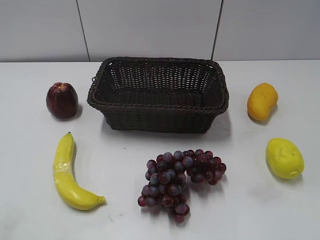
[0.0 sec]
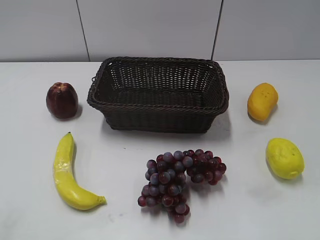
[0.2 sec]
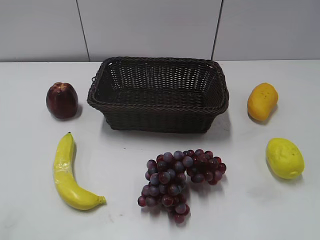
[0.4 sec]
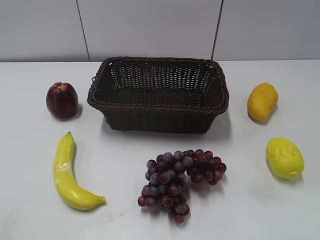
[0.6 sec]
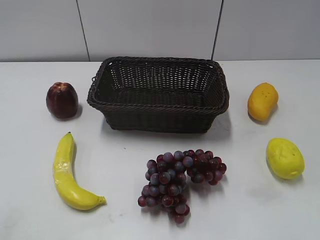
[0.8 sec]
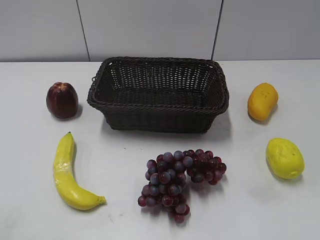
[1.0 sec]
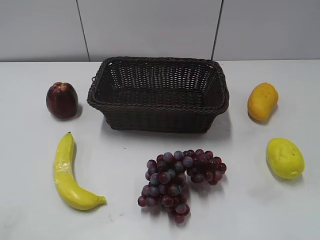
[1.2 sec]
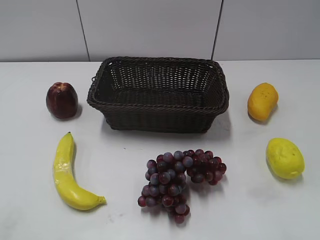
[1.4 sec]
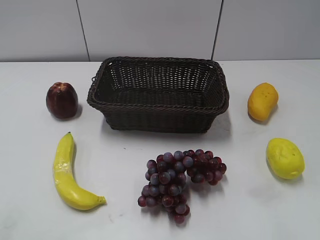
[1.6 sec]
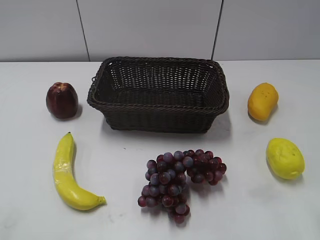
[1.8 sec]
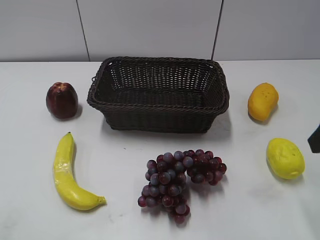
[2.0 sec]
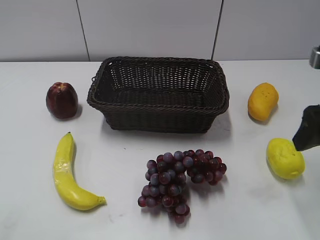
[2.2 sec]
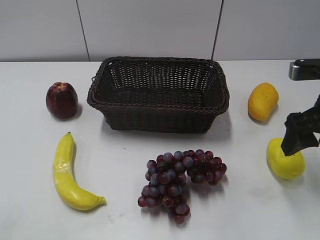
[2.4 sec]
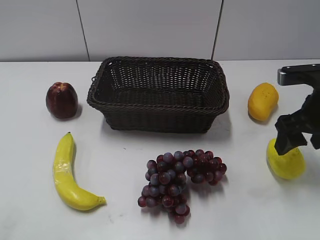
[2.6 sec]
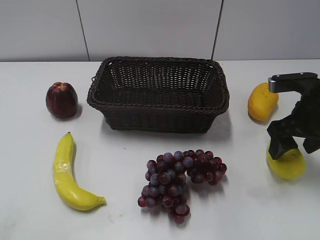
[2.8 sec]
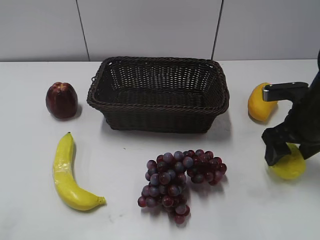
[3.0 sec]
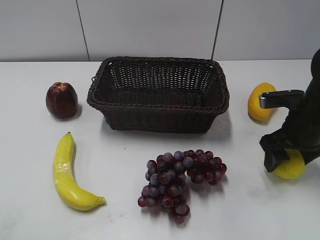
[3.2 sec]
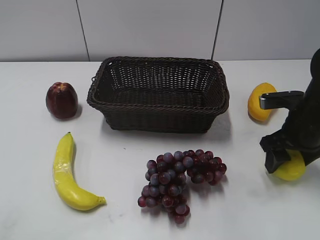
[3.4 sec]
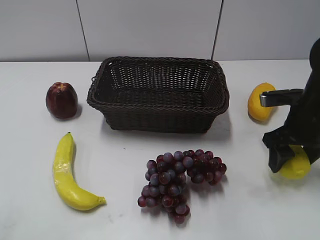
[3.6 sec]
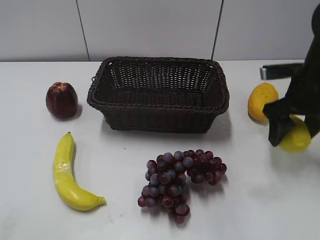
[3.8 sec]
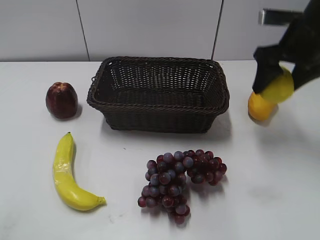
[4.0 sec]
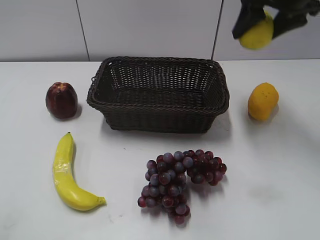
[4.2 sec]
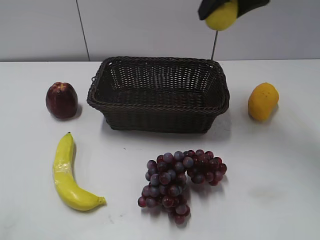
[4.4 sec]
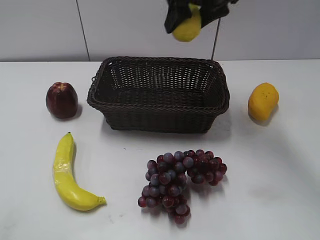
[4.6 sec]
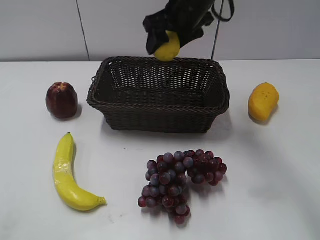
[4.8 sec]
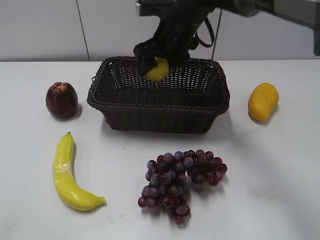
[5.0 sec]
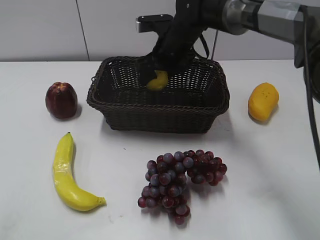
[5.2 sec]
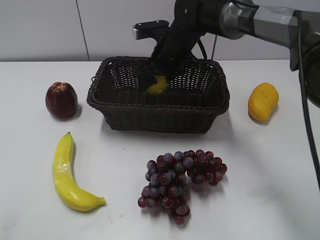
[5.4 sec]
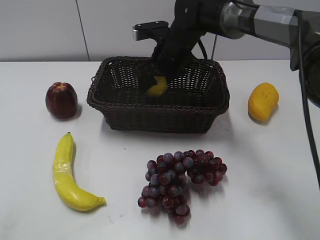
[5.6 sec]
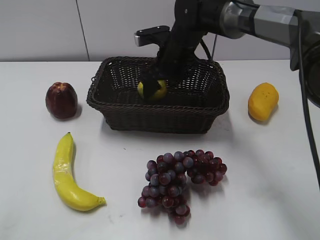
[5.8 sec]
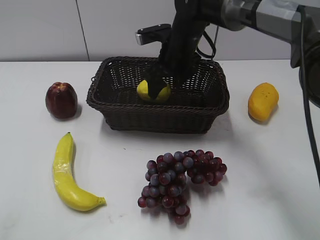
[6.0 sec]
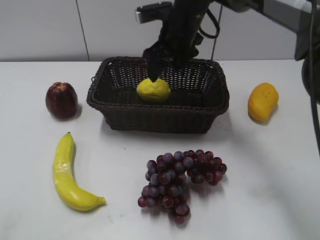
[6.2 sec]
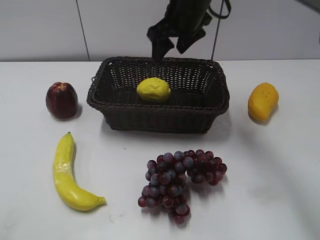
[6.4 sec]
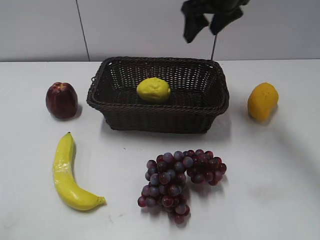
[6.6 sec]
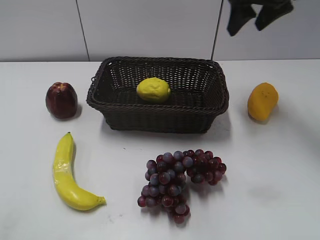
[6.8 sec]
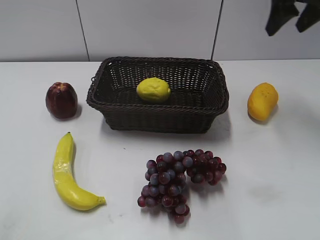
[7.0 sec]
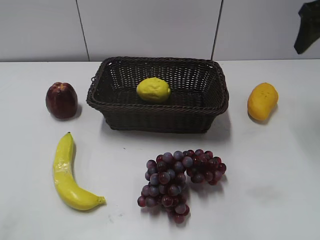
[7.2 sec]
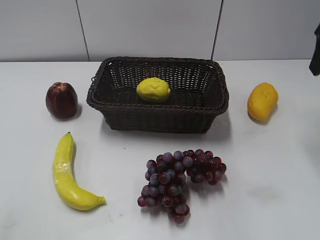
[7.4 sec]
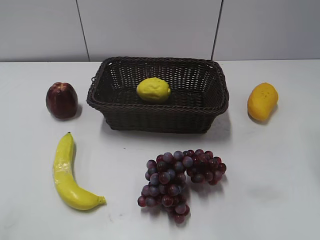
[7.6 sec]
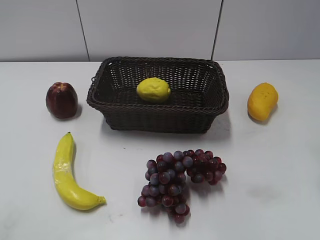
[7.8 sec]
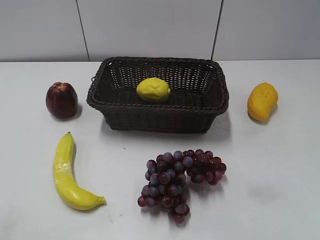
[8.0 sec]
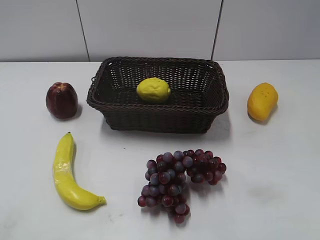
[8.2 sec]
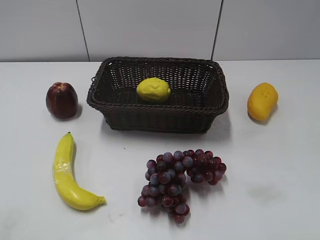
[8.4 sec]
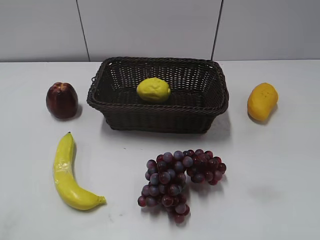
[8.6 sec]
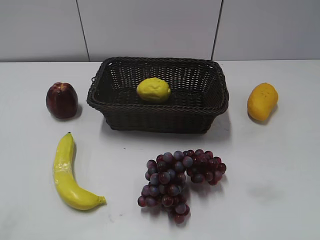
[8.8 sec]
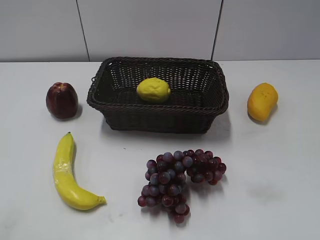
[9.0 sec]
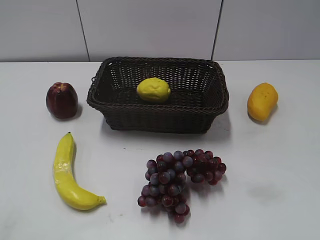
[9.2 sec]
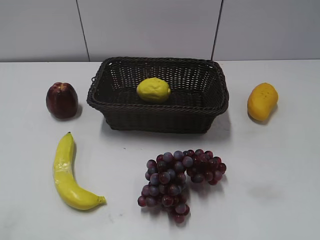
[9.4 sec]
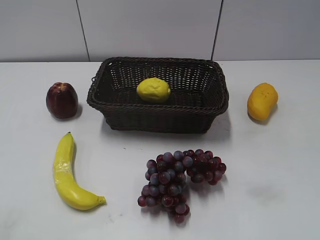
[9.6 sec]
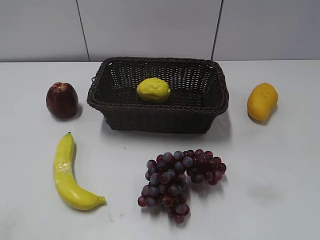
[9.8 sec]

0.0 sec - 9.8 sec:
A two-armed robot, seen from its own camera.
Step, 2.0 sec - 3.4 sec: Grasp the lemon with right gripper.
Step, 3.6 sec - 5.8 sec: Place the lemon in the basket with right gripper.
1.4 sec - 2.8 sec: The right gripper shifts roughly 25 cm forward and downward, and opens up.
2.8 sec - 4.2 sec: The right gripper goes some 20 cm upward and forward, and closes.
4.2 sec - 5.6 sec: The right gripper heads to the left and downward, covering roughly 25 cm, and opens.
5.6 sec - 7.0 sec: The right gripper moves to the right and upward, approximately 30 cm, and opens, then closes again.
7.0 sec - 8.4 sec: The right gripper travels backward by some 30 cm.
